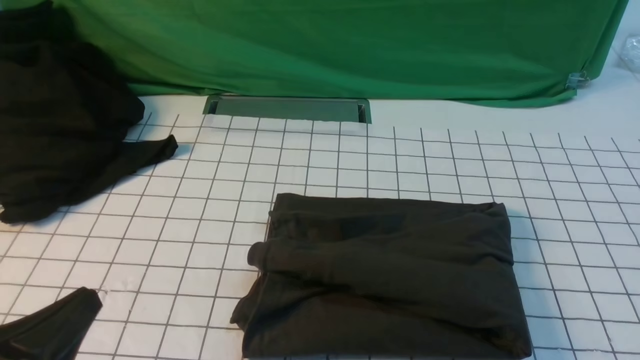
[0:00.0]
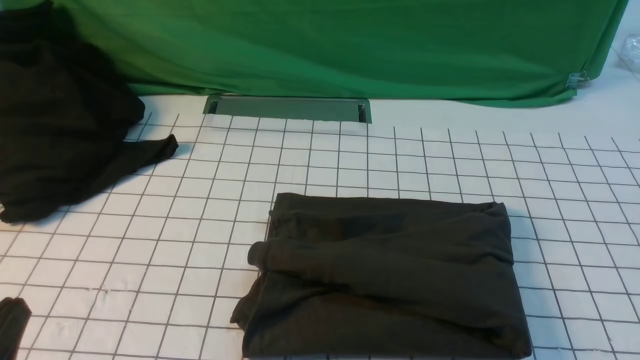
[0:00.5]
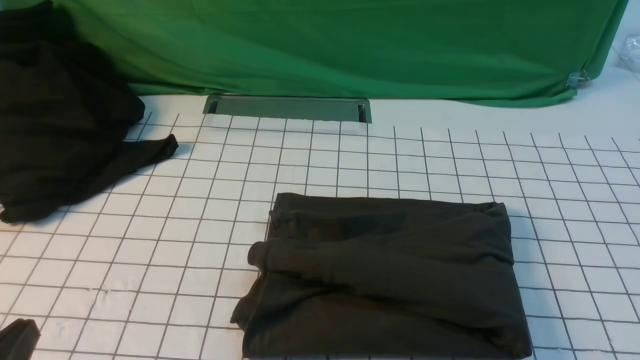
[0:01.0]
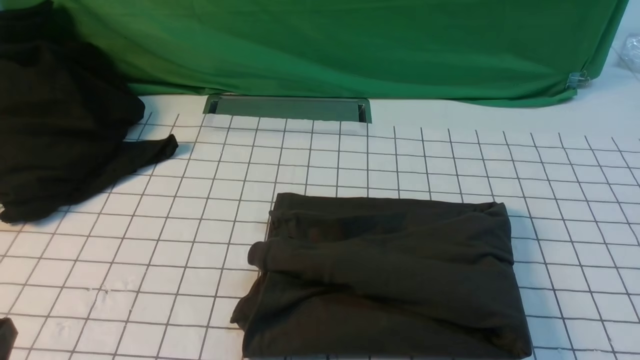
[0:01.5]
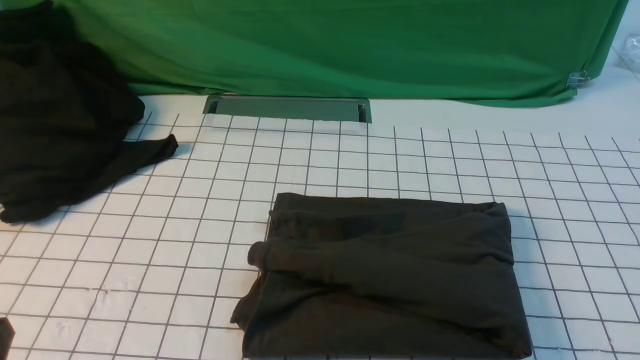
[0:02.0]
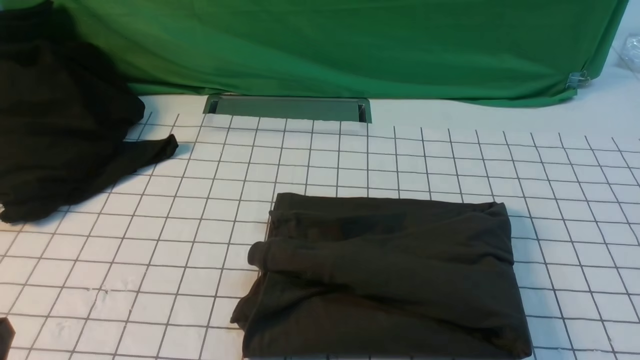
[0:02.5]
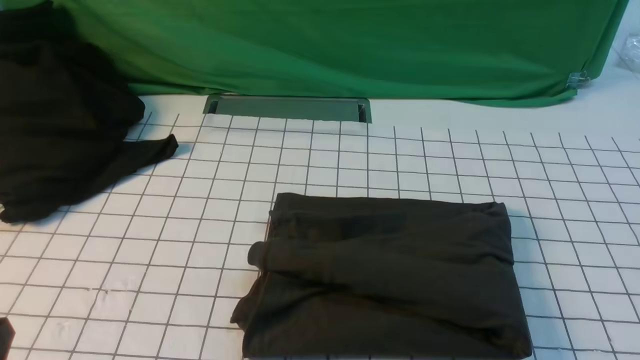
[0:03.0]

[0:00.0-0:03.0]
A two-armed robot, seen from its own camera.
0:01.5 to 0:03.0: Both grippers stay put.
